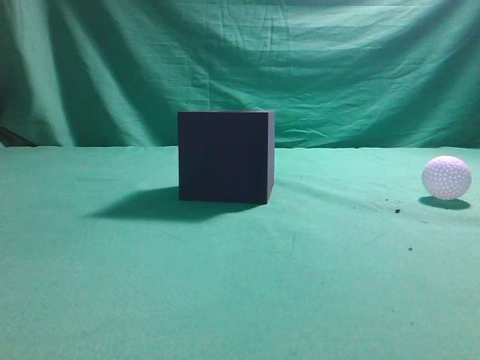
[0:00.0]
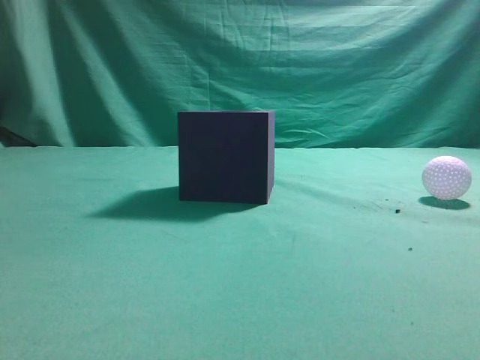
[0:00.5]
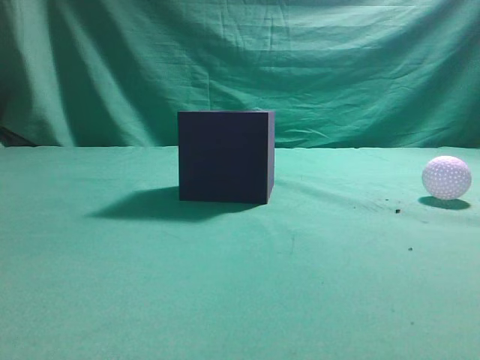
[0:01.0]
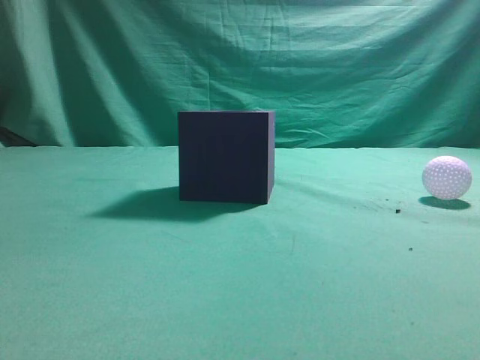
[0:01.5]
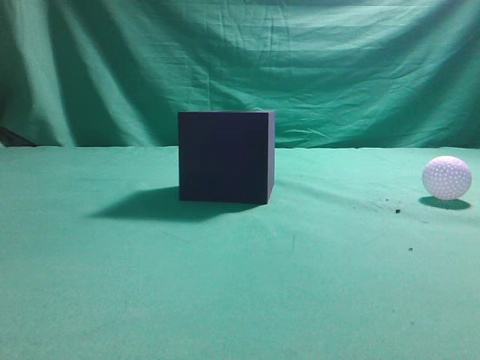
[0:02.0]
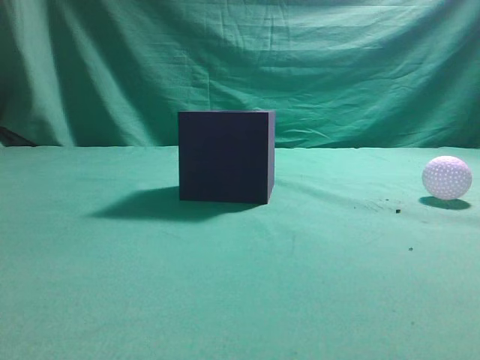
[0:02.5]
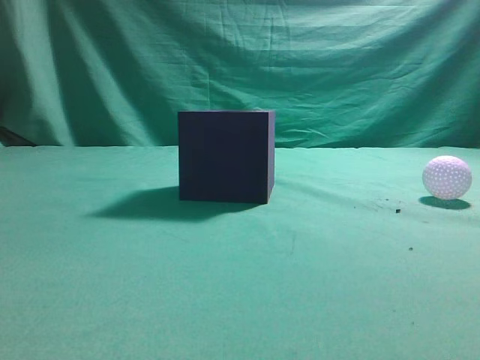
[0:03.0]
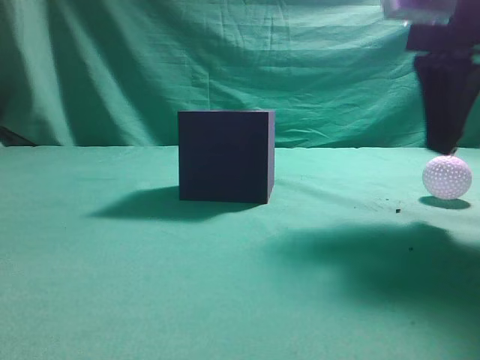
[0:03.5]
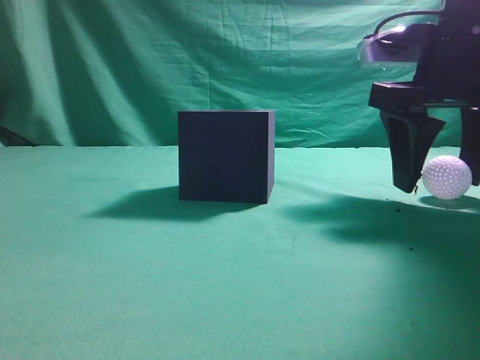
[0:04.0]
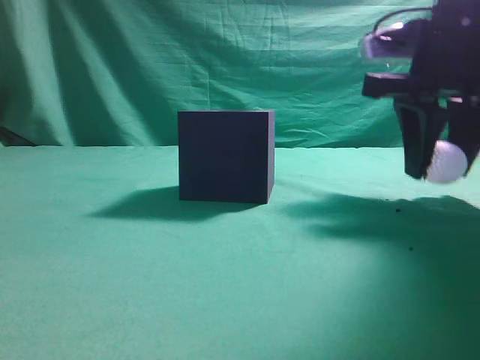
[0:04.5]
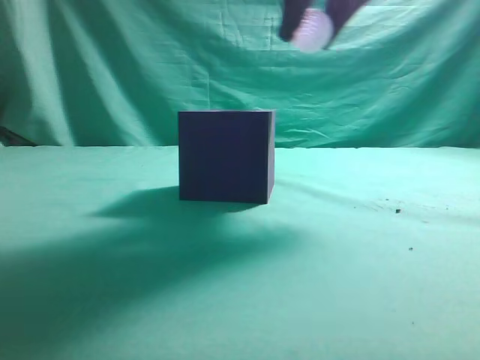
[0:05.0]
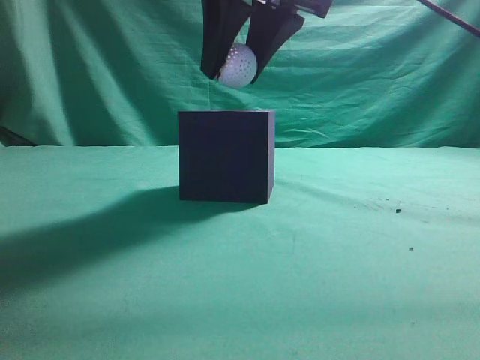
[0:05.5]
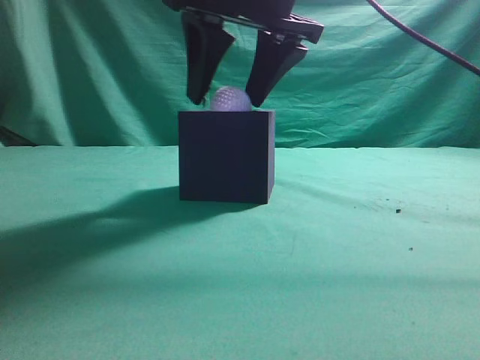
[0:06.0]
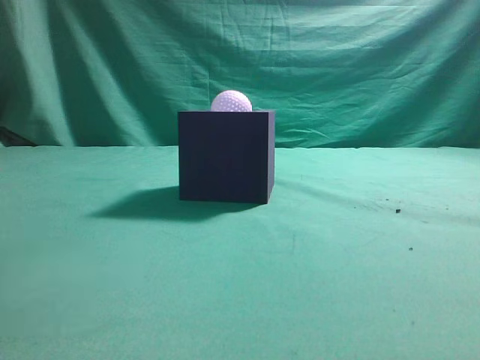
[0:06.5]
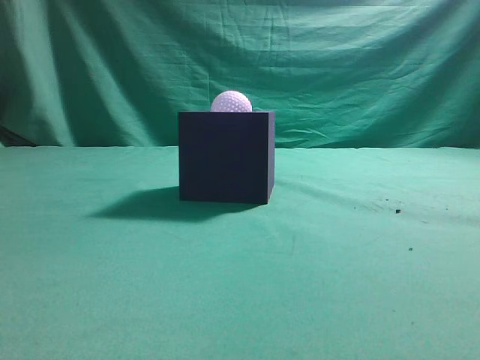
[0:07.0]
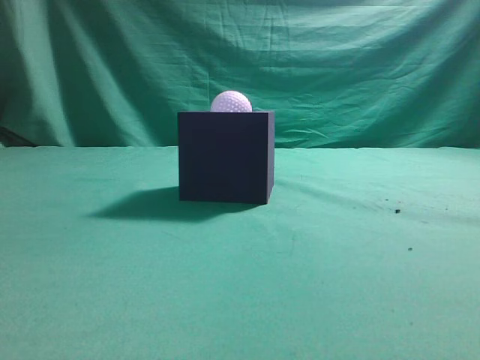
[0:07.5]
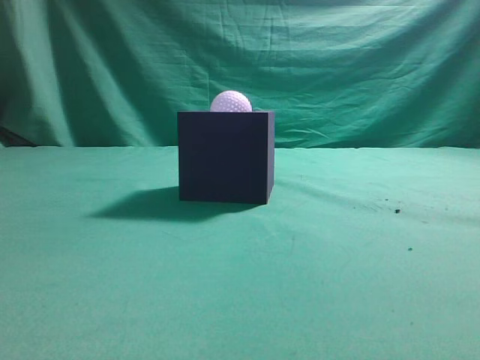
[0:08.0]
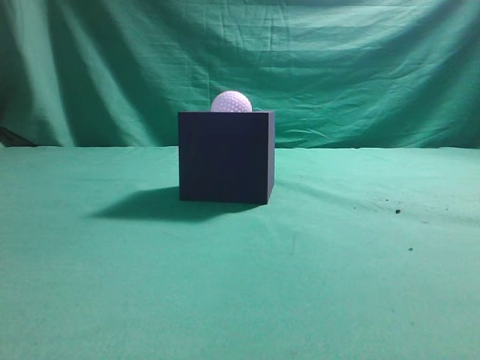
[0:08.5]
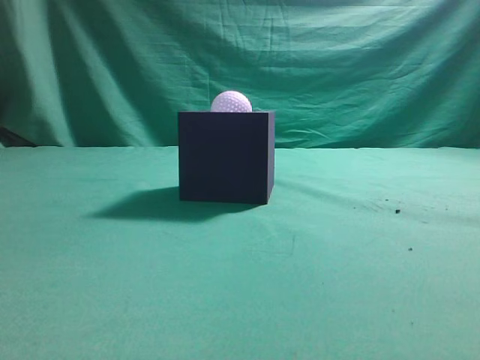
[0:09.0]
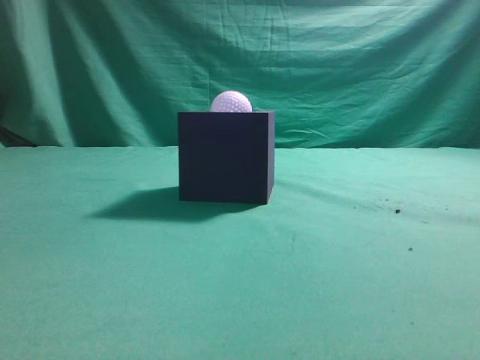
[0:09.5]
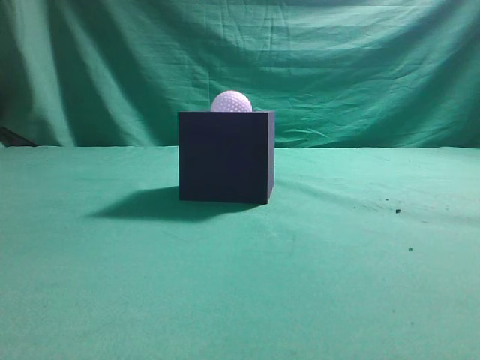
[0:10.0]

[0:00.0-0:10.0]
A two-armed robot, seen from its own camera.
Task of the whole recording: Pick up the ball and place it in the circular groove above the cube.
Step, 0:00.0 to 0:03.5: Grasp the sphere on the table.
Step, 0:04.0 to 0:05.0: Place the sphere into the sphere-shaped recess.
0:02.0 to 0:04.0: The right gripper shifts approximately 25 cm forward, and opens its fingers.
0:04.0 to 0:06.0: The right gripper goes roughly 15 cm to the left and upward.
0:06.0 to 0:08.0: The right gripper is displaced backward, to the right and upward by approximately 40 cm, and closes up.

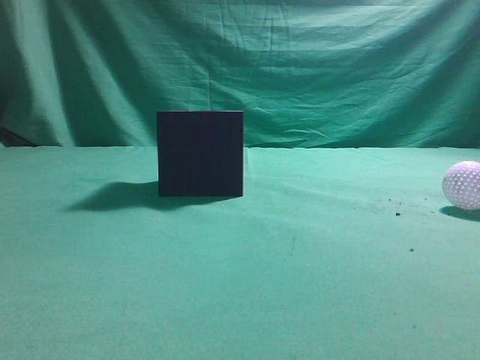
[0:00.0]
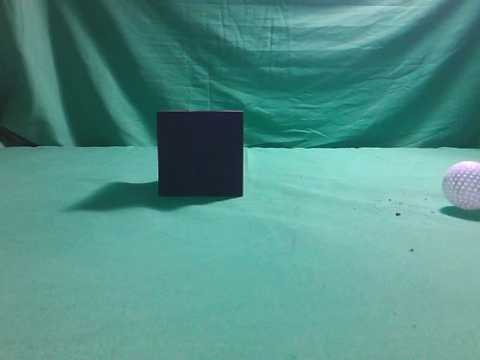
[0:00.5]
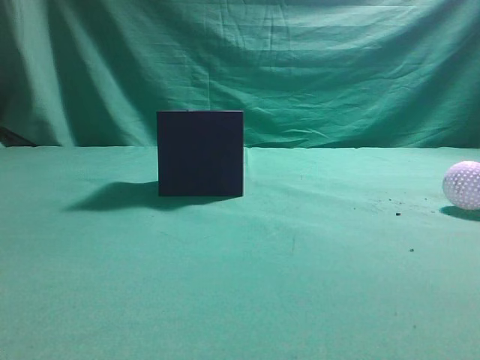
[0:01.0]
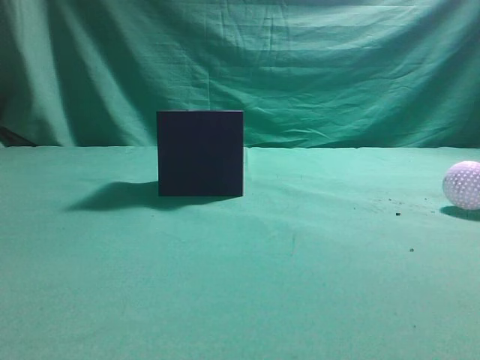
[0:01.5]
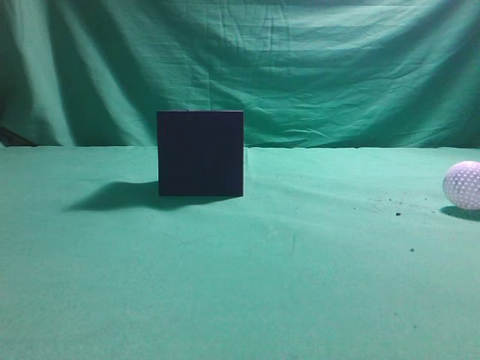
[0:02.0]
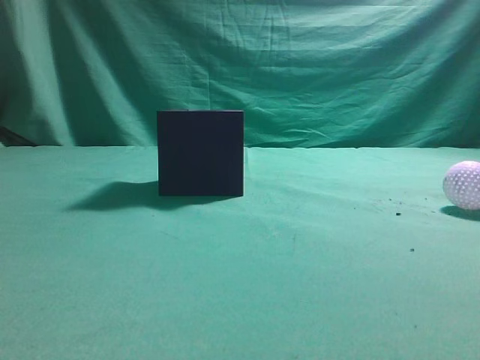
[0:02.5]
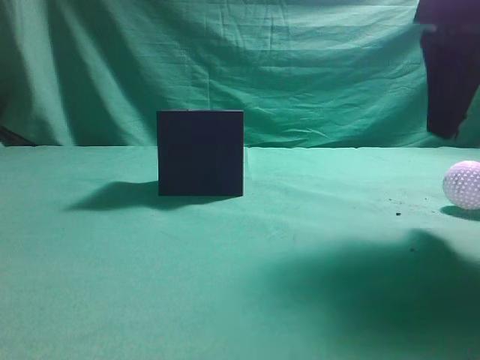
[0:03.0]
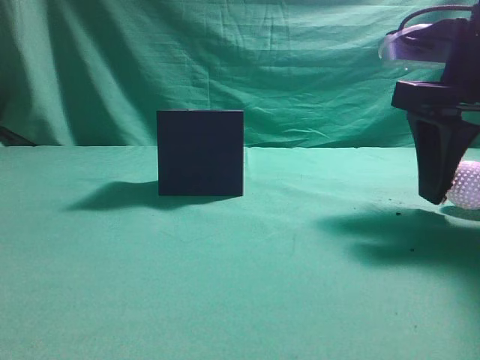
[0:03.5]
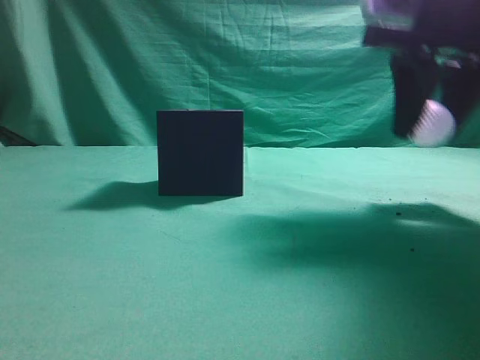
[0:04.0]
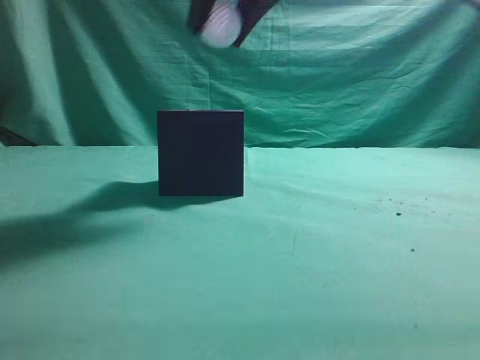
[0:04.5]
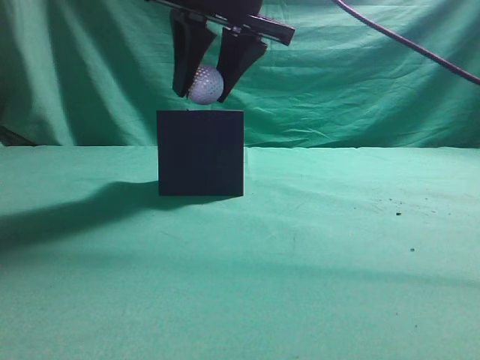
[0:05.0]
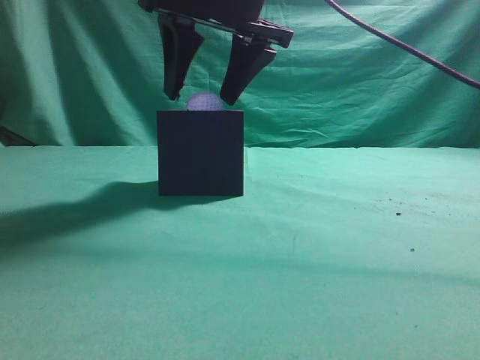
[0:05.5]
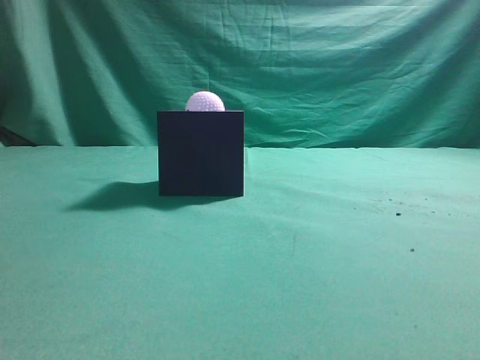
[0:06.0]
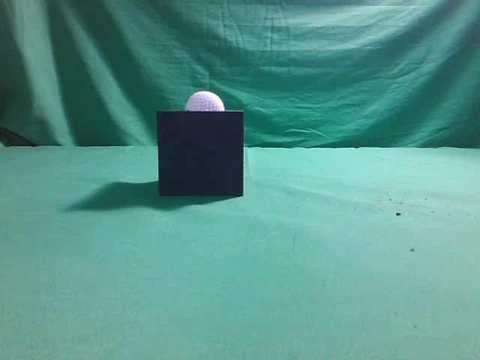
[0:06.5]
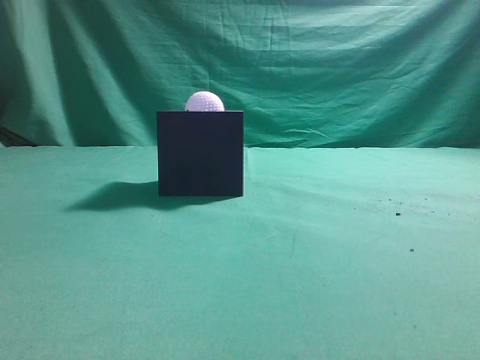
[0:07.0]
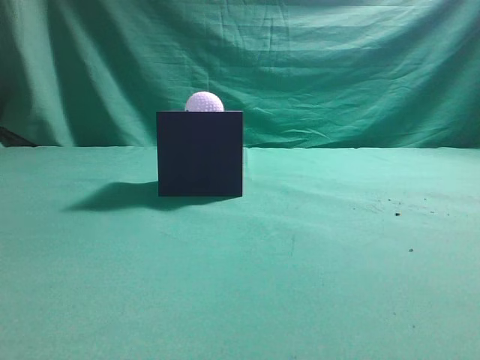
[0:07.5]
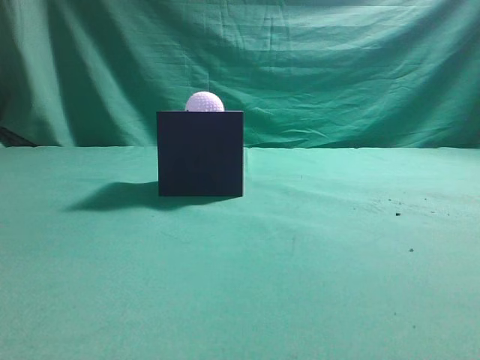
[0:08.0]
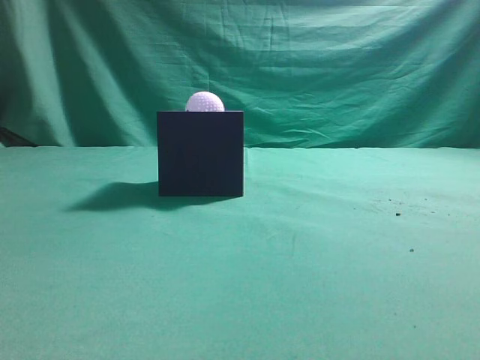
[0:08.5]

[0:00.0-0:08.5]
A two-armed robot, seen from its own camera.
Task of the whole recording: Pick up the ball and place it in the circular groove above the cube.
Step, 0:00.0 to 0:03.5: Grasp the sphere on the table.
Step, 0:04.0 to 0:05.5: Place the sphere into the sphere-shaped recess.
0:02.0 to 0:04.0: The right gripper goes some 20 cm forward and to the left, and opens, then closes again.
0:04.0 to 0:06.5: The right gripper moves up and down over some 20 cm, changing direction 2 times, and closes.
